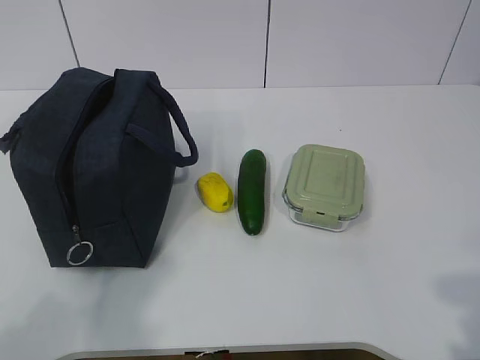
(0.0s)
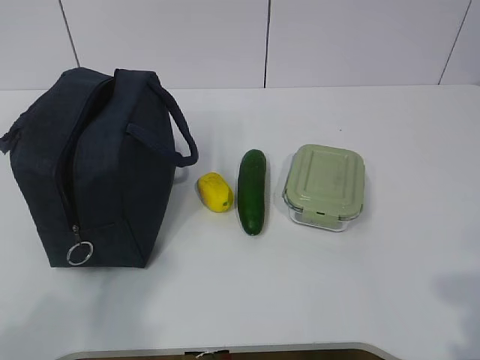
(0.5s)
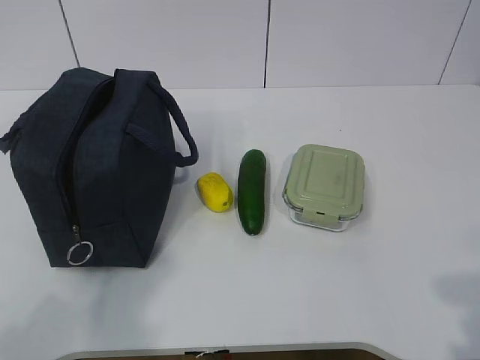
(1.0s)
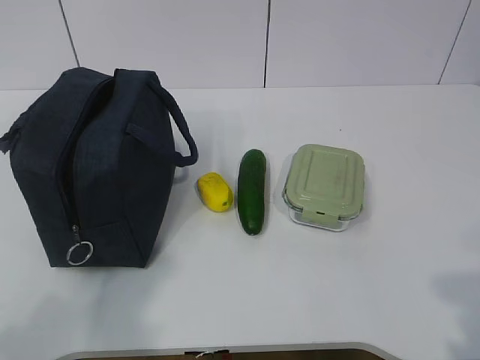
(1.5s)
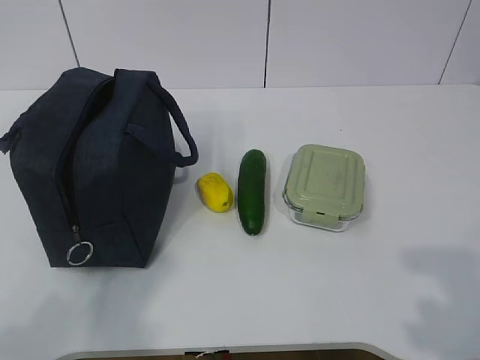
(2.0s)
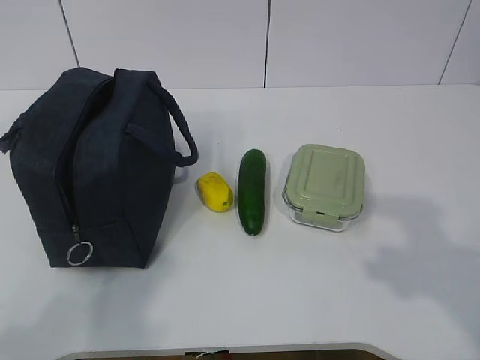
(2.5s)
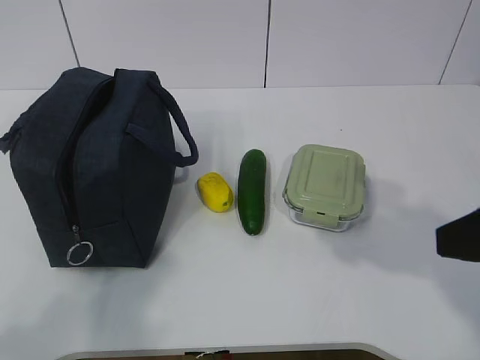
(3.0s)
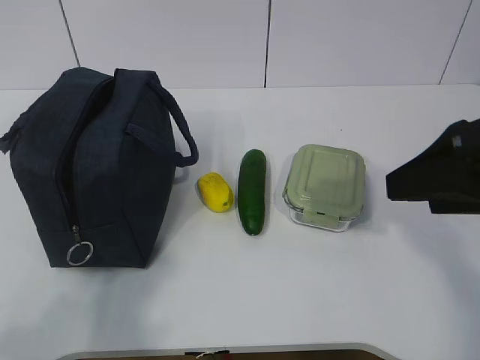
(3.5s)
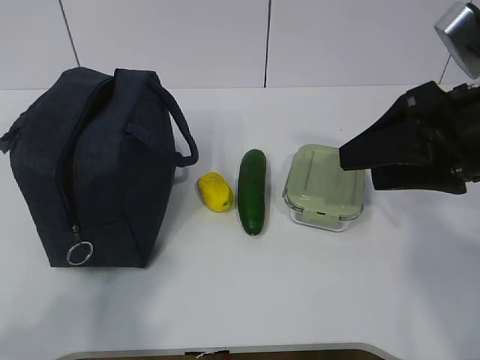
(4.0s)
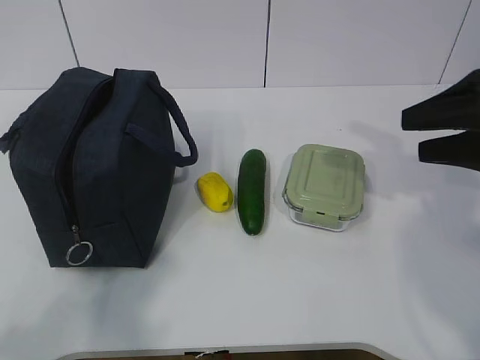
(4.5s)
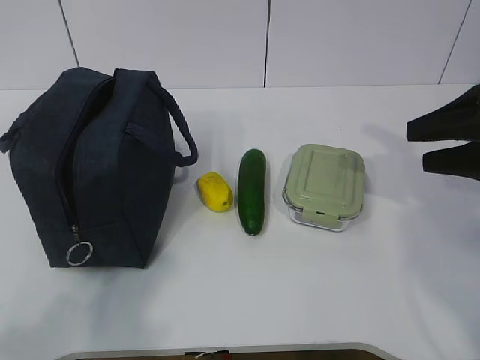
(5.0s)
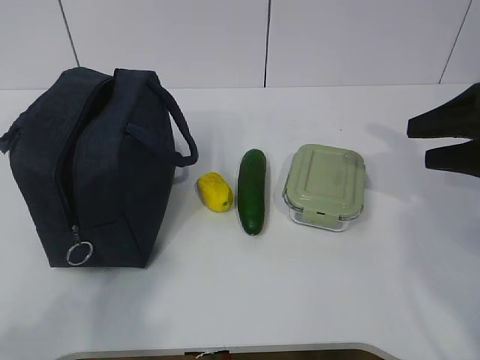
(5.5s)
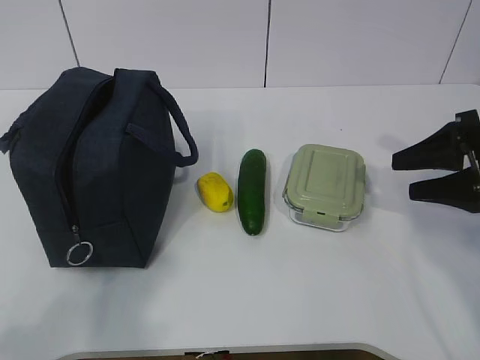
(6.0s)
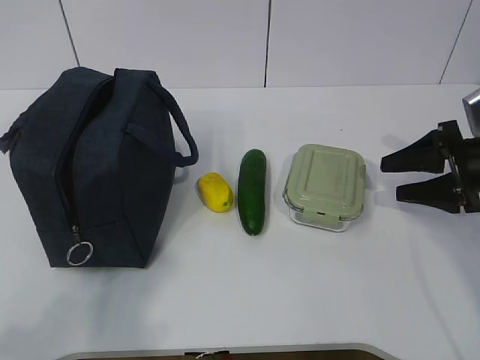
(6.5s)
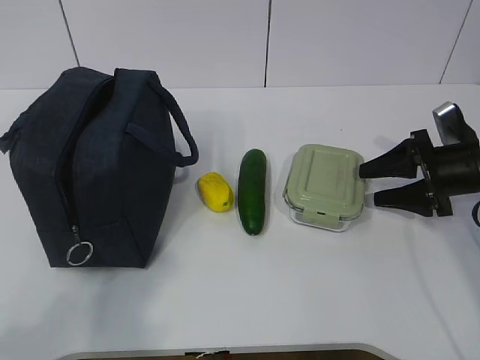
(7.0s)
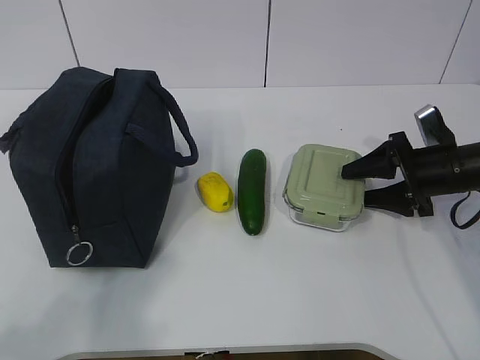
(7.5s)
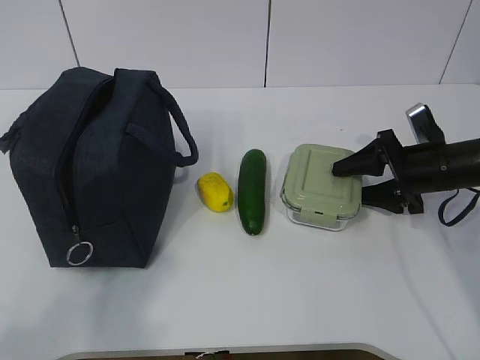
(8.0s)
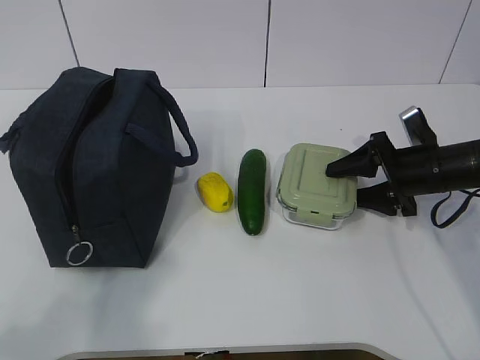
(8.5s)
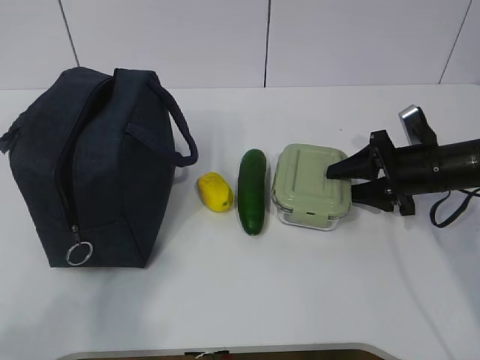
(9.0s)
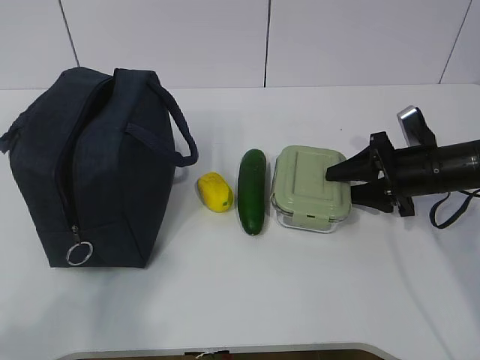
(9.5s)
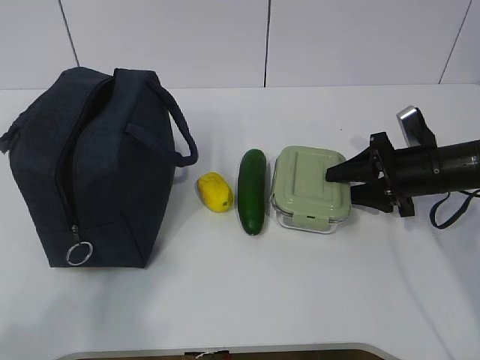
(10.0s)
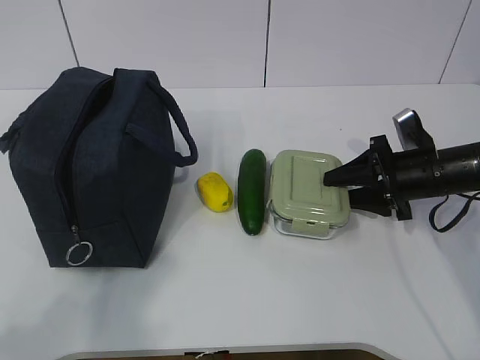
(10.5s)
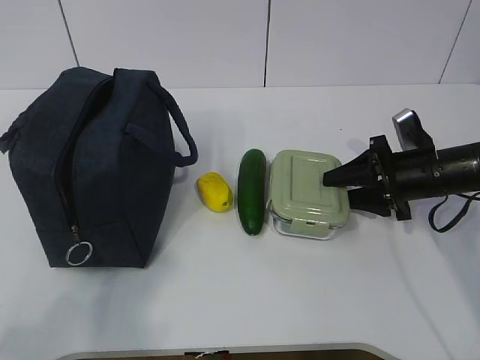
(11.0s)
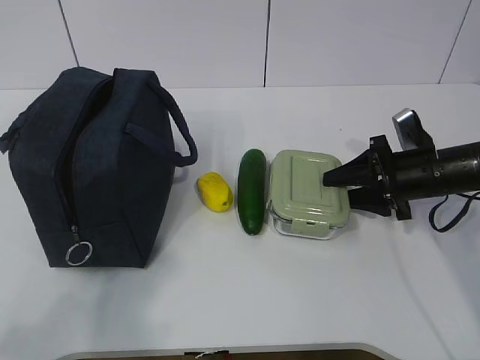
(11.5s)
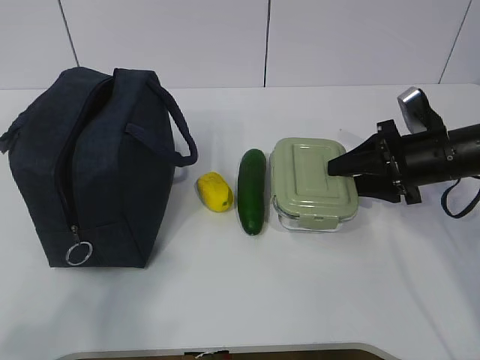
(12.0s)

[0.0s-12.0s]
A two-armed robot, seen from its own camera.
Step, 0.0s to 9.5s: Grab the lunch box with your right hand.
2.0s to 4.0s: The right gripper travels forward by some 25 cm.
4.0s to 6.0s: The right gripper travels to the right, downward and forward by about 15 cm.
6.0s to 8.0s: The right gripper shifts approximately 10 cm downward and forward.
8.0s to 10.0s: Both grippers stay about where they are.
10.0s to 12.0s: The grippers stay close to where they were, moving slightly.

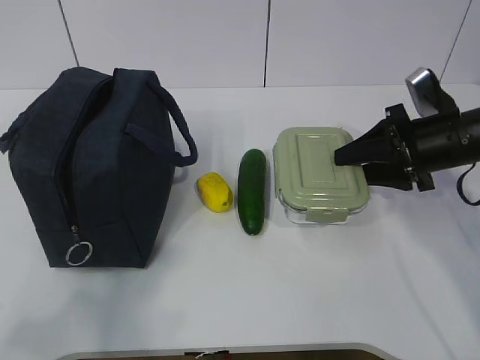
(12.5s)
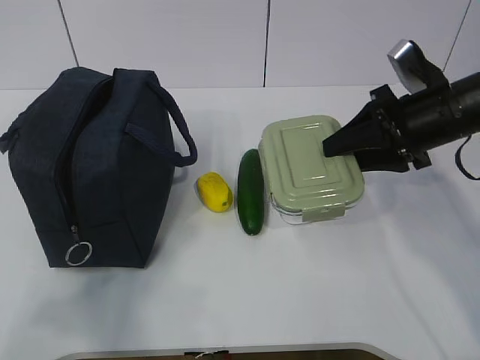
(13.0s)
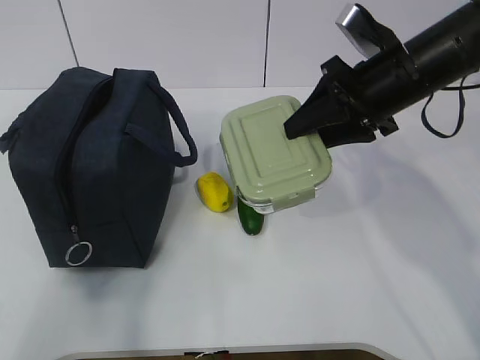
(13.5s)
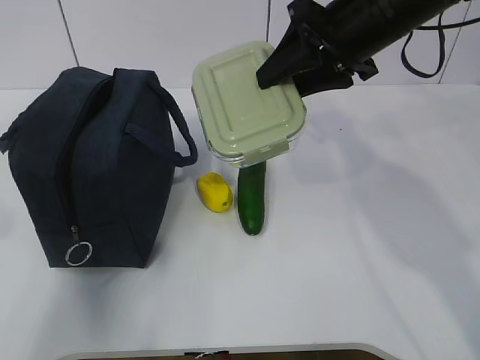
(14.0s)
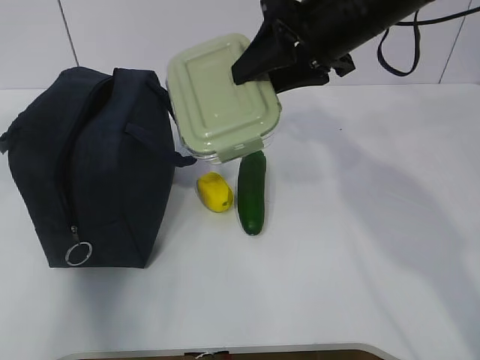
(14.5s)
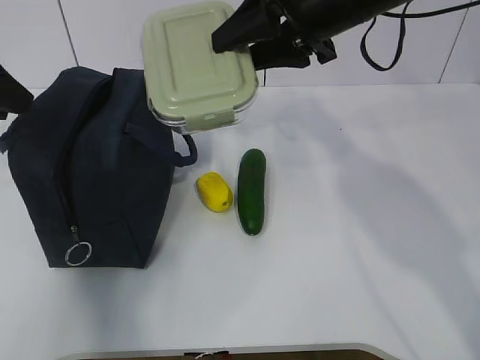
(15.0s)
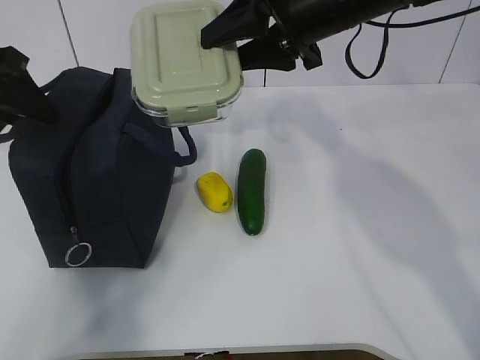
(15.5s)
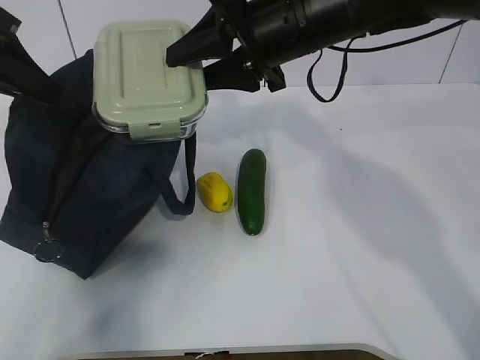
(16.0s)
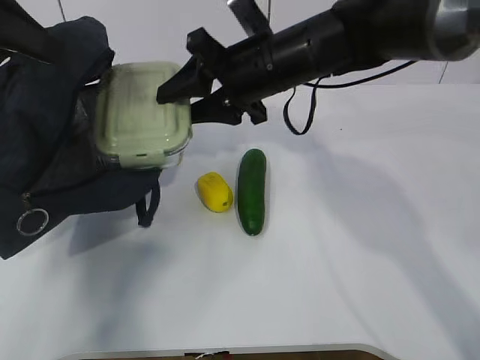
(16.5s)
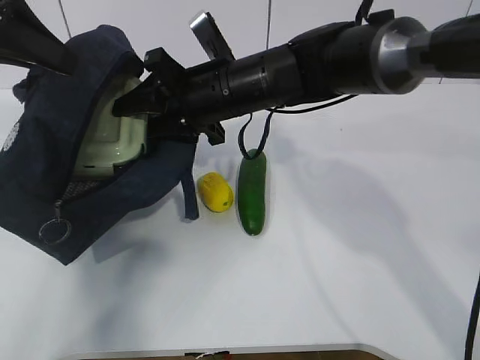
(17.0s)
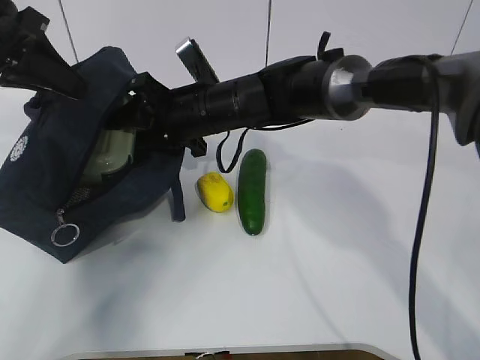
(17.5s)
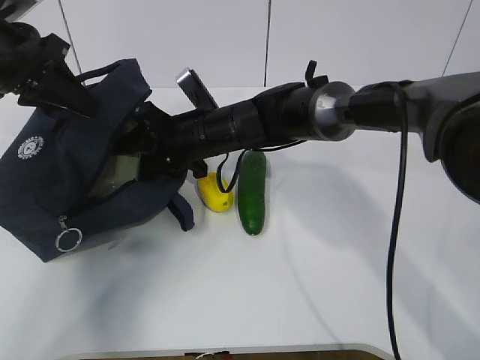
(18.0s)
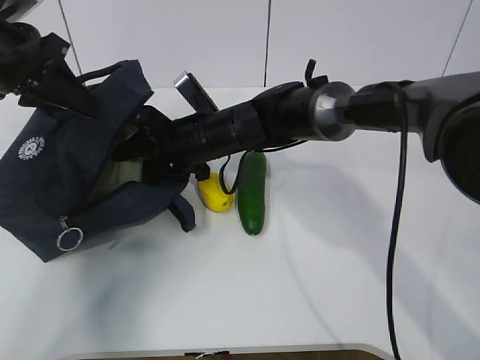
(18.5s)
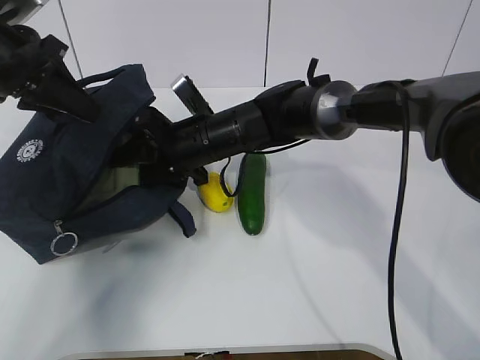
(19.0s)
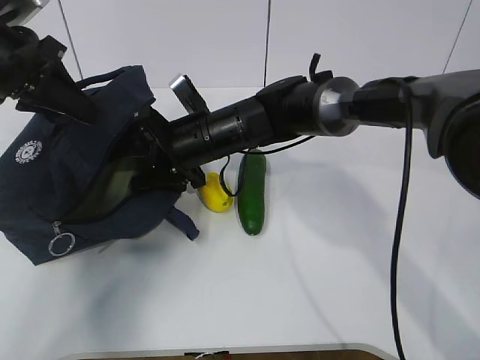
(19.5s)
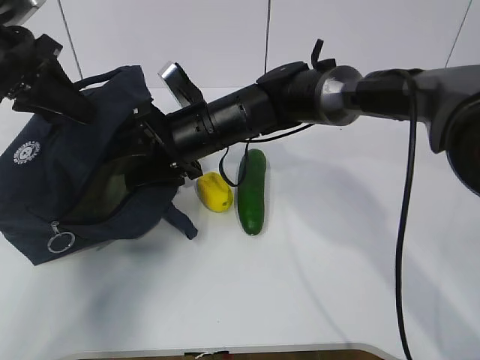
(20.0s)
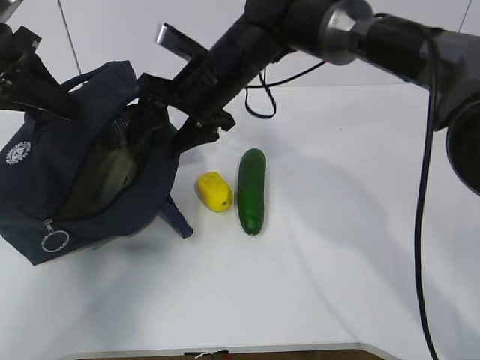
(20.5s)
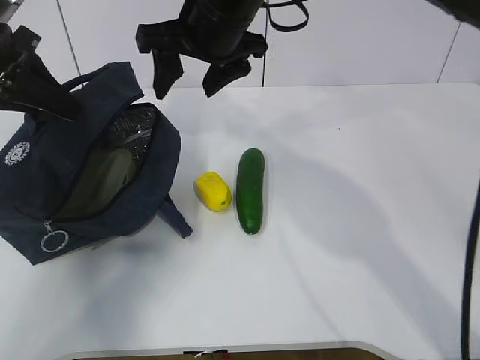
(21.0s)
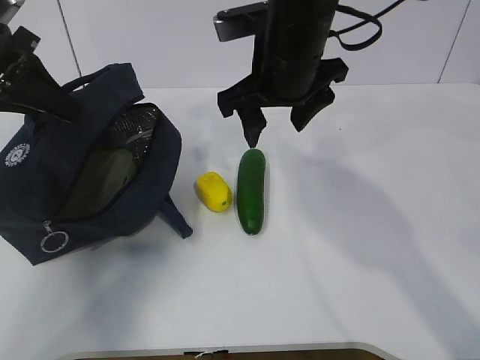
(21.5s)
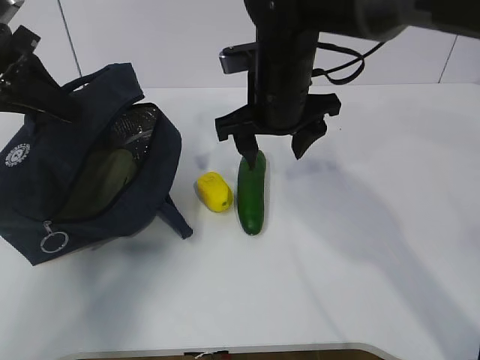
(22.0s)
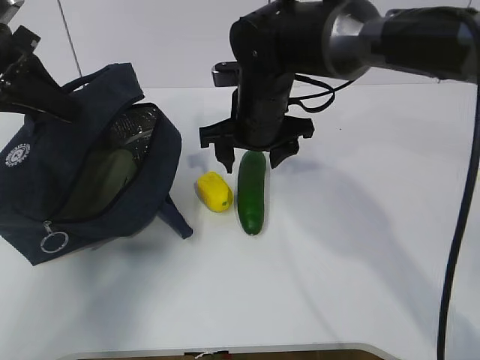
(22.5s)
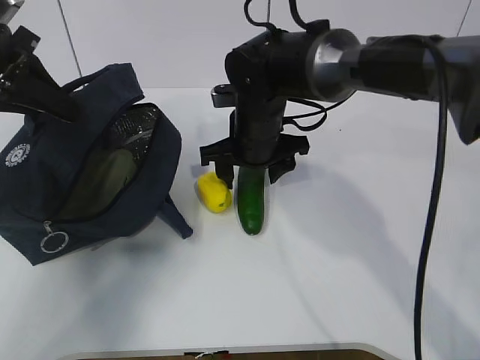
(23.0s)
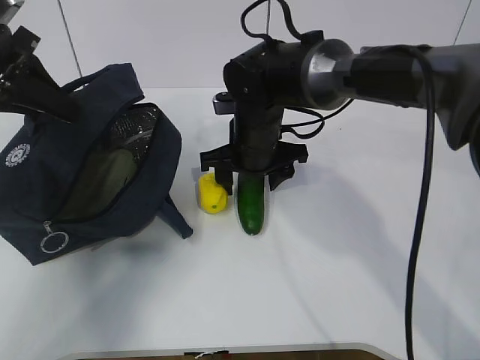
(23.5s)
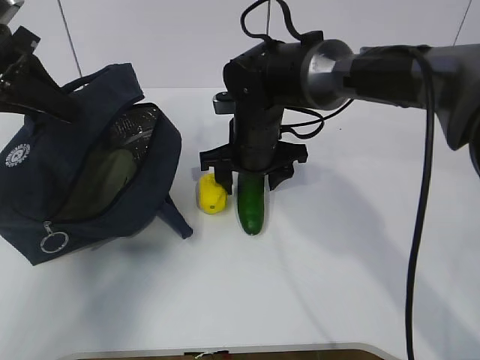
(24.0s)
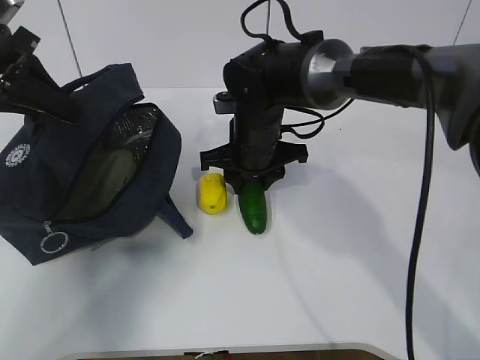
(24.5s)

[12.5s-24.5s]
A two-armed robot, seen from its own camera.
Step, 13.5s to 16.0s: Place it into the bag with your right hand.
Step, 16.5s to 20.0s: Grab the cucumber with your right hand.
Step, 21.0s to 22.5s: Place it into the bag with your right hand.
12.5s to 14.5s: The left gripper heads forward, covering some 20 cm. Meanwhile the right gripper moves upward and to the left, about 20 cm.
14.5s to 16.5s: The right gripper moves to the left and downward, about 10 cm. The left gripper heads forward, covering roughly 10 cm, and closes up.
16.5s to 18.5s: The left gripper shifts roughly 10 cm downward and forward, while the right gripper heads downward and to the left, covering some 15 cm.
18.5s to 20.5s: The right gripper goes about 5 cm upward.
20.5s to 22.5s: The right gripper travels upward and back again, roughly 10 cm each way.
22.5s to 24.5s: The right gripper closes its fingers.

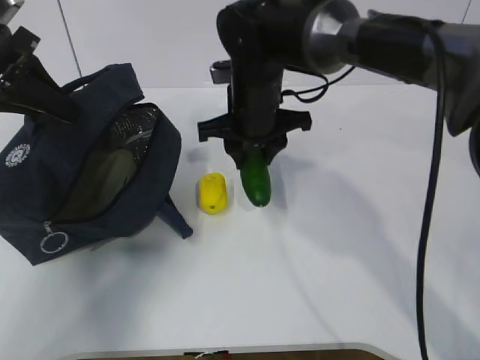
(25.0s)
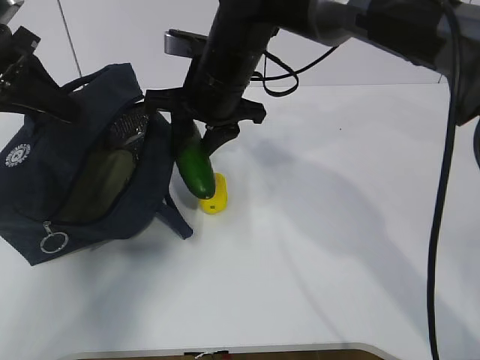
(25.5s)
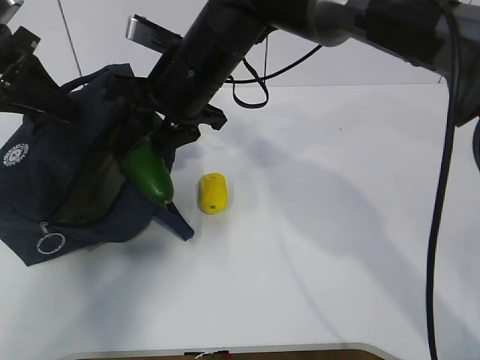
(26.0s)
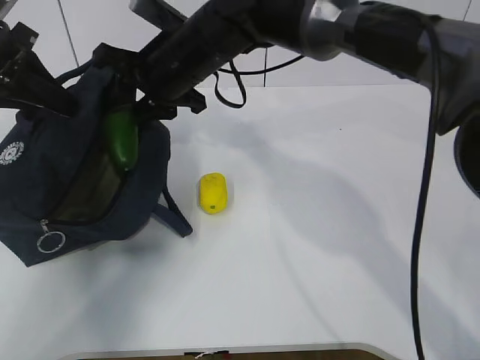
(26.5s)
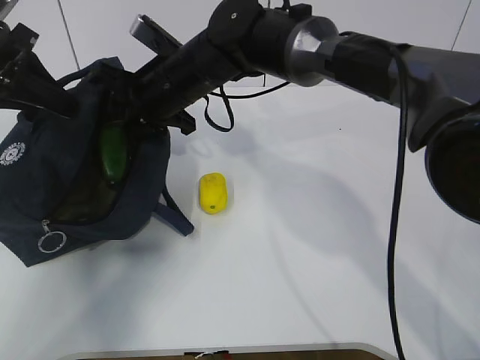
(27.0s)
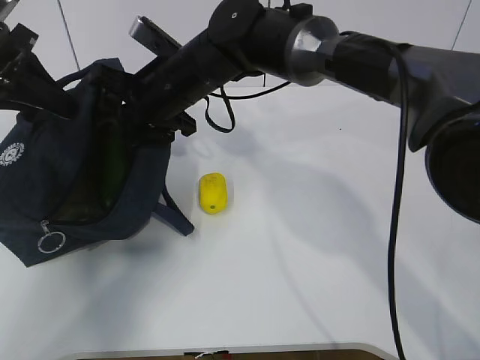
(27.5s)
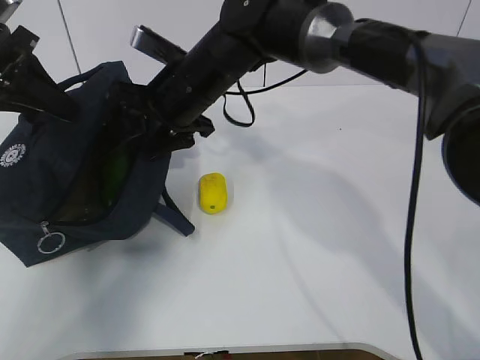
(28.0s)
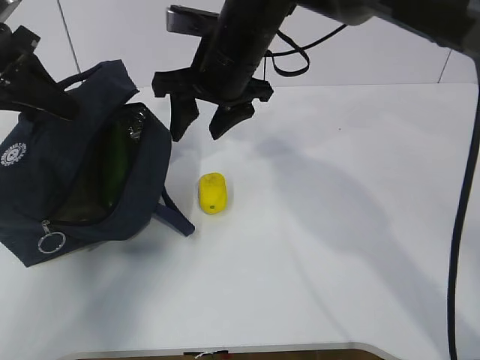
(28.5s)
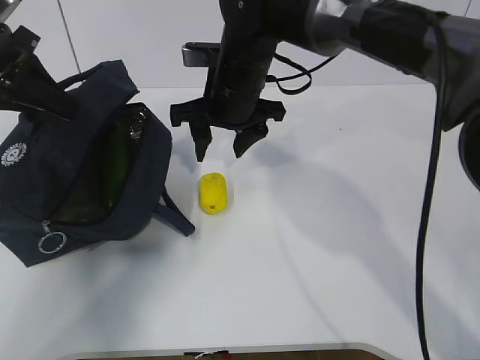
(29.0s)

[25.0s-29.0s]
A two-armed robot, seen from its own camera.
25.0s to 27.0s: The right gripper shifts about 10 cm to the left.
27.0s to 29.0s: The right gripper moves to the right, about 5 cm.
